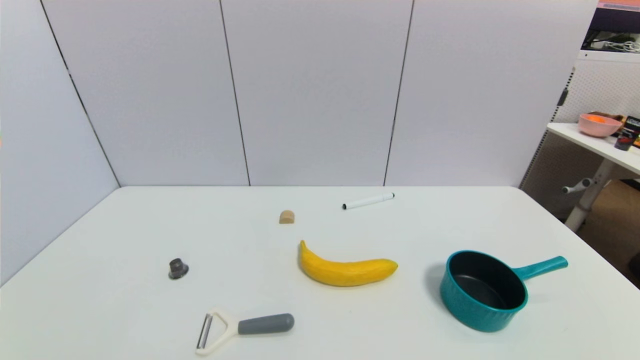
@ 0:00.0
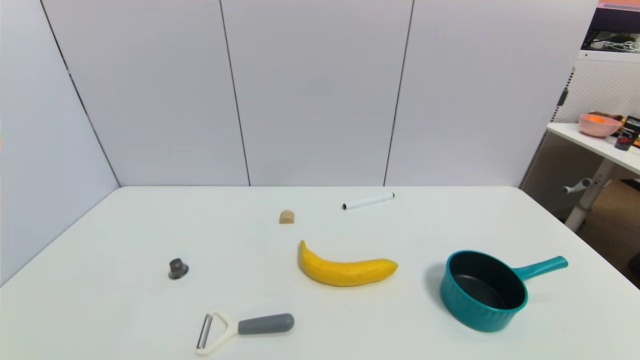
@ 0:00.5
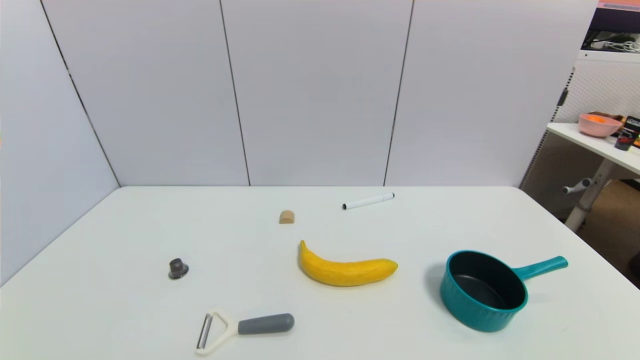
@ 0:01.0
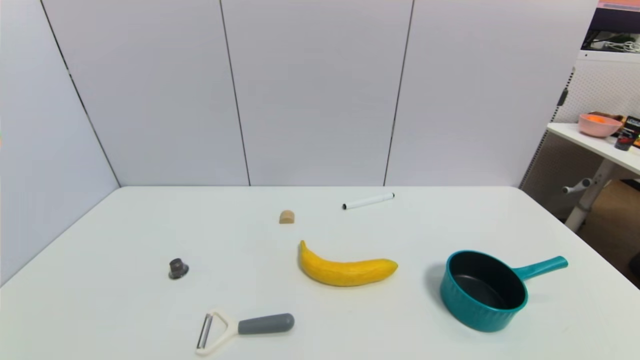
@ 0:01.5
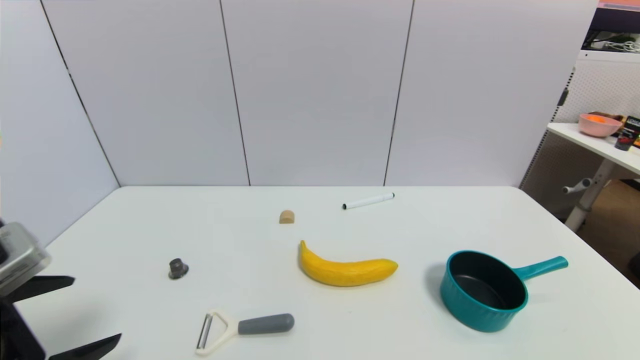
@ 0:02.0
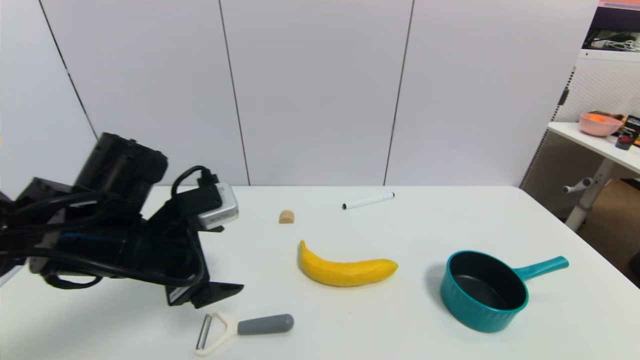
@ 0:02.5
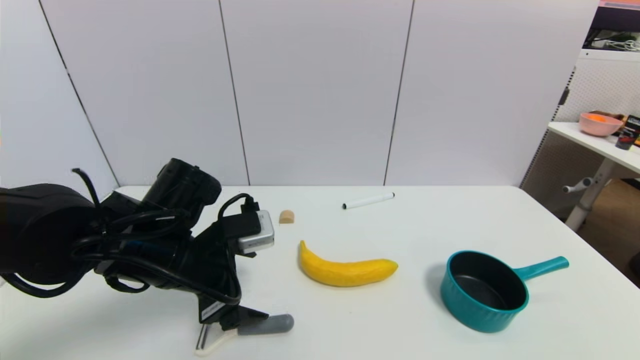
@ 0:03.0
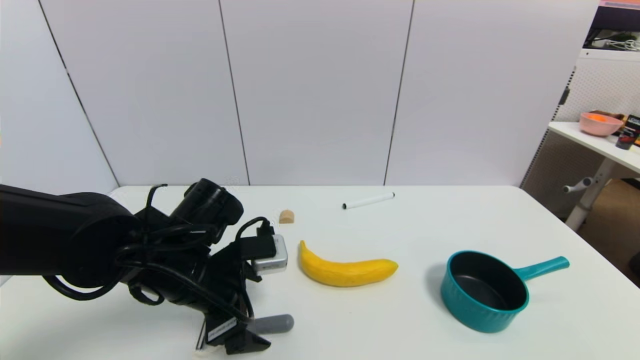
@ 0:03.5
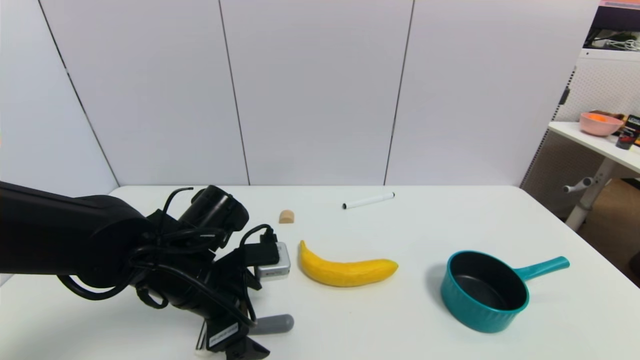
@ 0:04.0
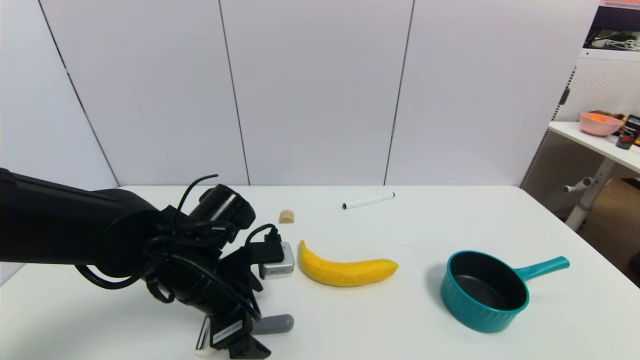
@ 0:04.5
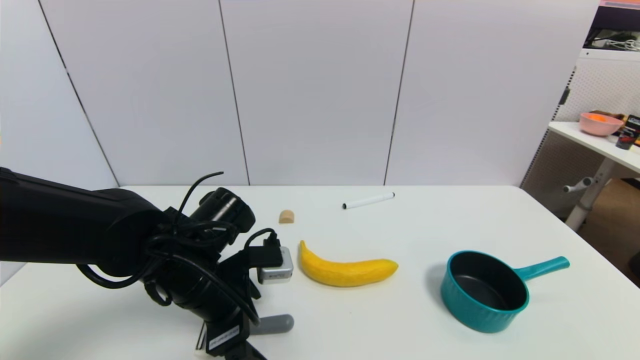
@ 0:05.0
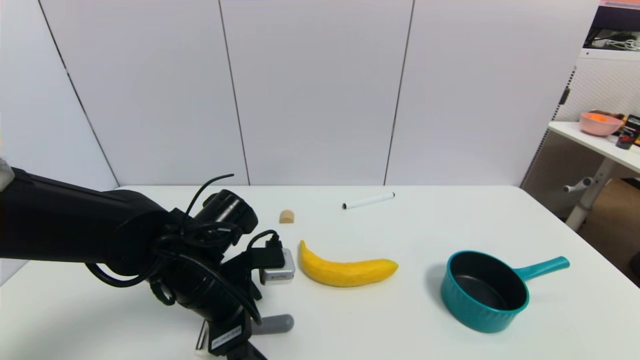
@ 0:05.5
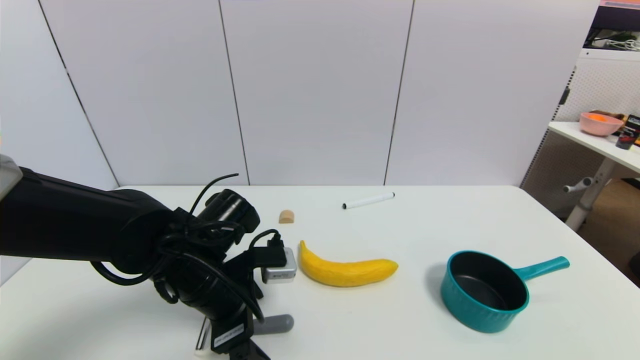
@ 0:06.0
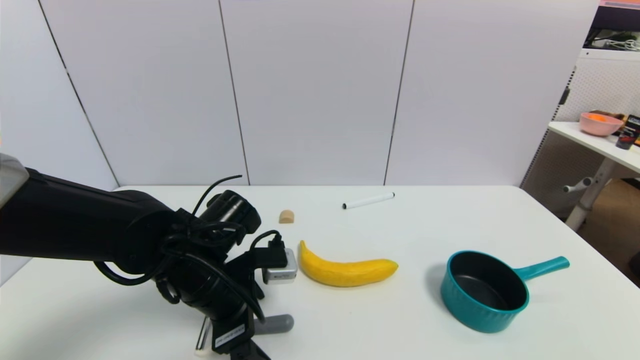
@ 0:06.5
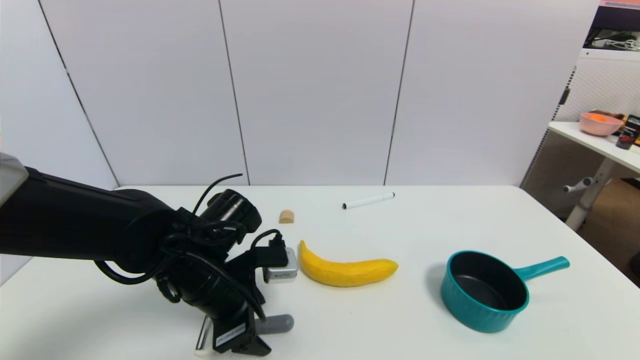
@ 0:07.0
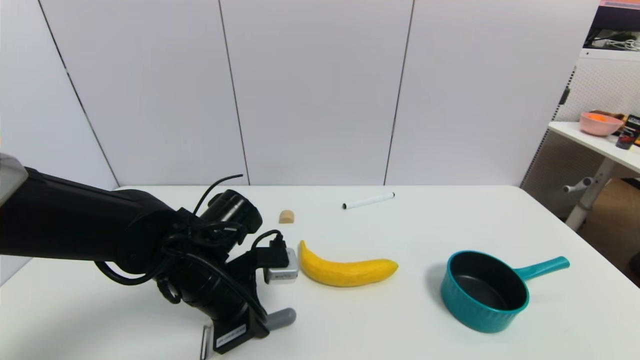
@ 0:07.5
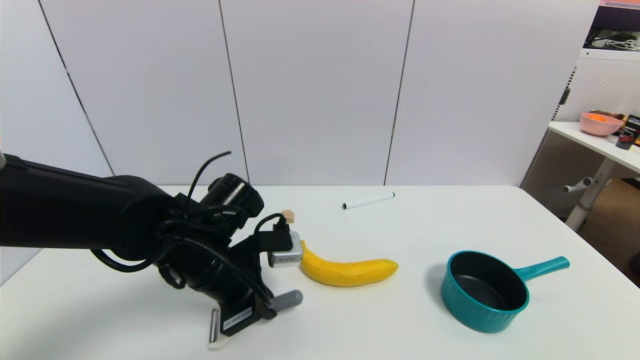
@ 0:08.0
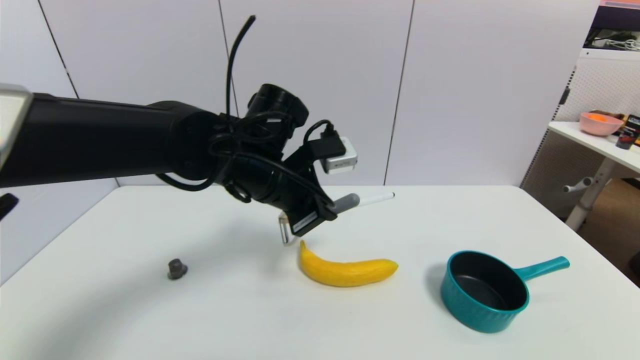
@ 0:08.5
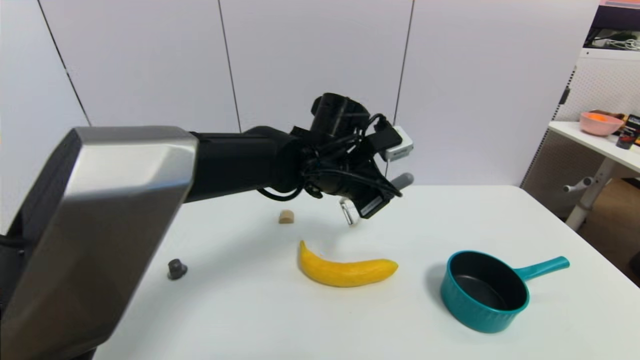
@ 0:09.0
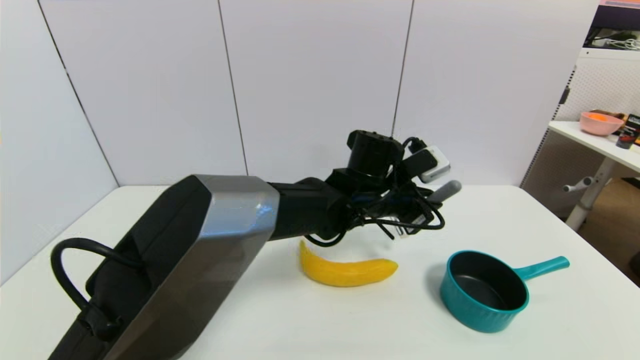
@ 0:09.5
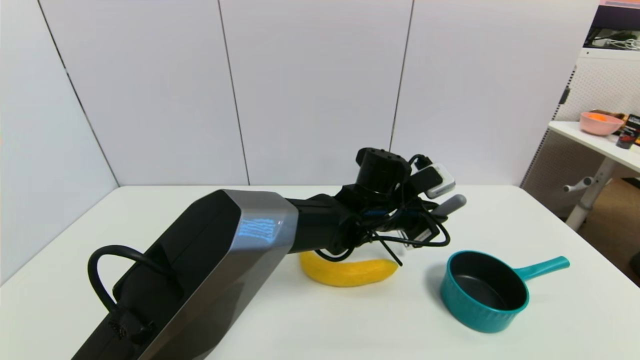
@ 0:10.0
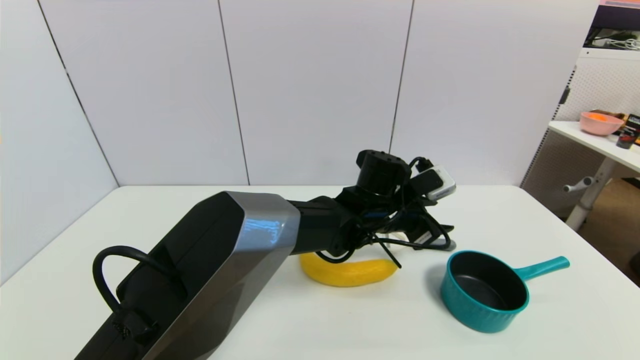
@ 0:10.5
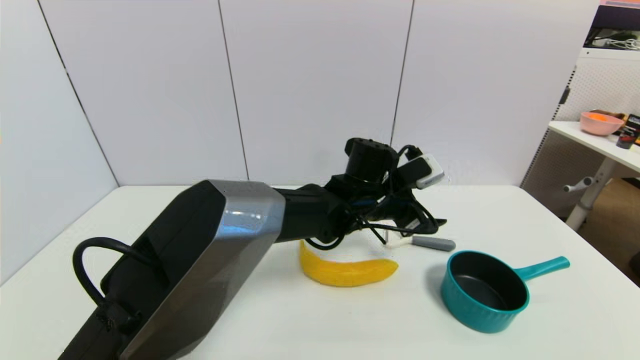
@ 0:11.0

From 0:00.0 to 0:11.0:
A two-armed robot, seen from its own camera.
Step, from 0:02.0 to 0:08.0: Grasp the peeler with left gripper.
Step, from 0:08.5 to 0:11.0: Place the peeler on the table with left gripper.
From 0:00.0 to 0:02.0: The left gripper moves upward and forward, approximately 20 cm.
From 0:02.0 to 0:03.5: The left gripper heads to the right, forward and downward, covering approximately 20 cm.
From 0:03.5 to 0:05.5: There are only small adjustments of the grippers.
From 0:05.5 to 0:07.5: The left gripper closes its fingers.
From 0:07.5 to 0:09.0: The left gripper moves to the right, forward and upward, about 20 cm.
From 0:09.0 to 0:11.0: The left gripper shifts roughly 10 cm downward and to the right, and opens its fingers.

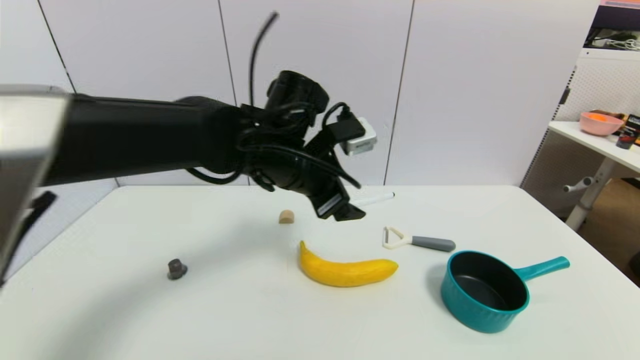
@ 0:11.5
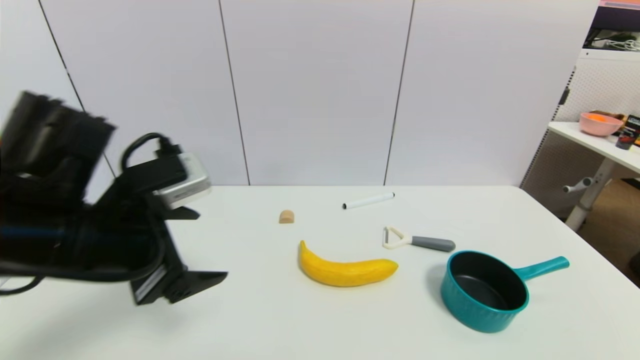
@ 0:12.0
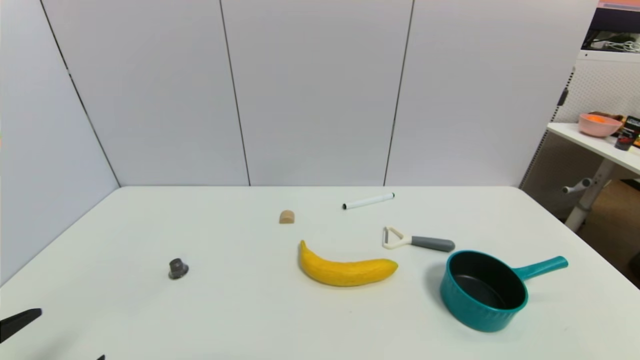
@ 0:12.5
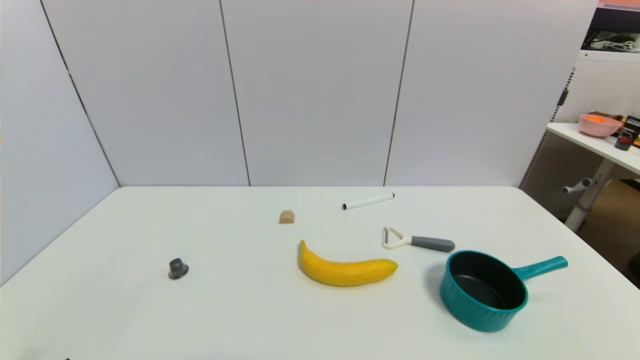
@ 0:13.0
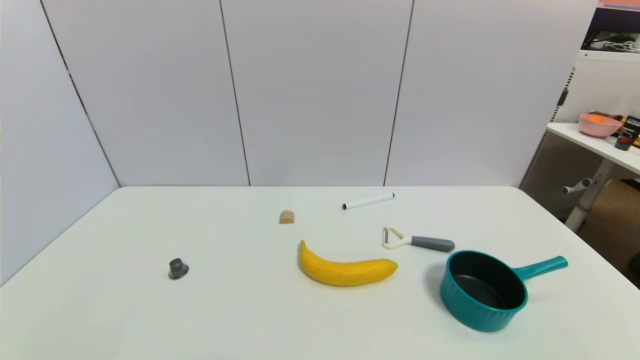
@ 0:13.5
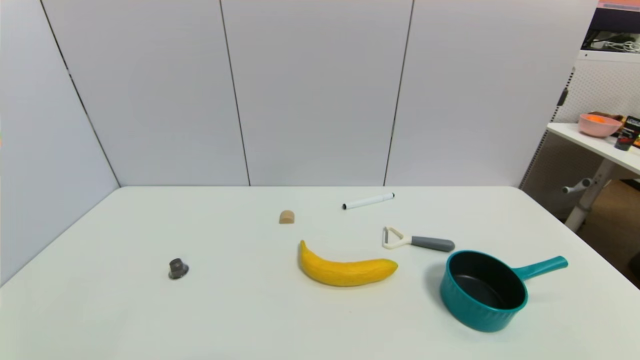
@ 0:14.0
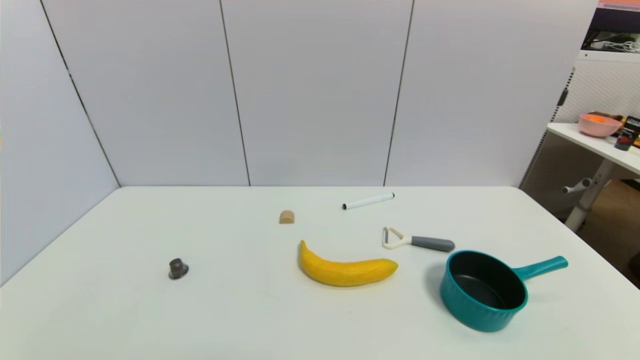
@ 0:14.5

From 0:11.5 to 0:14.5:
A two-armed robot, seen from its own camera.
From 0:11.5 to 0:13.0: The left gripper shifts some 40 cm backward, to the left and downward.
